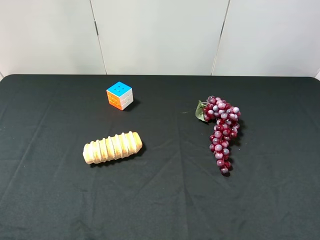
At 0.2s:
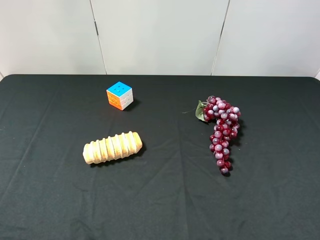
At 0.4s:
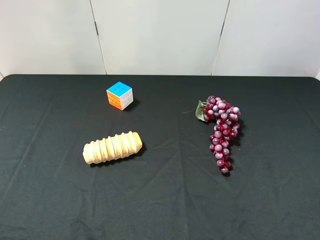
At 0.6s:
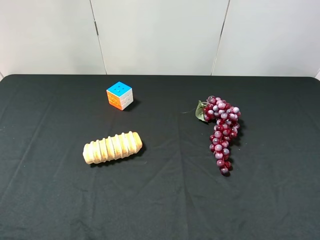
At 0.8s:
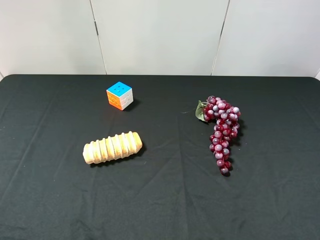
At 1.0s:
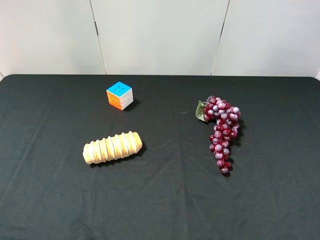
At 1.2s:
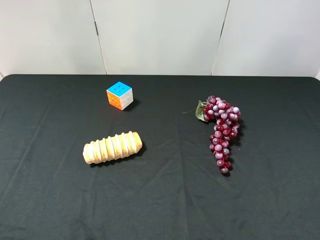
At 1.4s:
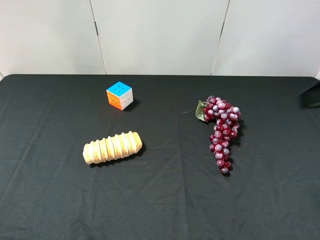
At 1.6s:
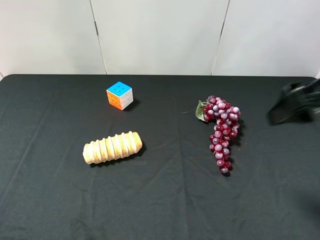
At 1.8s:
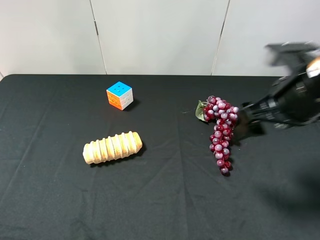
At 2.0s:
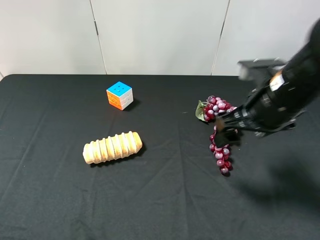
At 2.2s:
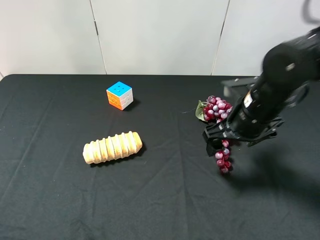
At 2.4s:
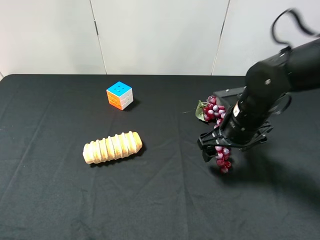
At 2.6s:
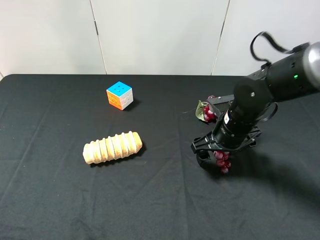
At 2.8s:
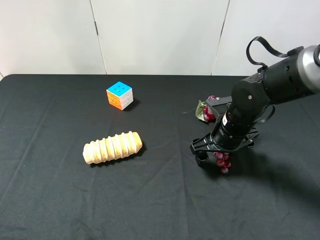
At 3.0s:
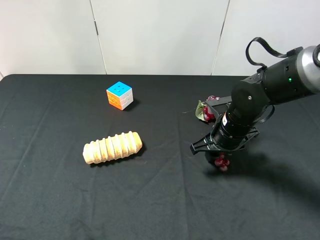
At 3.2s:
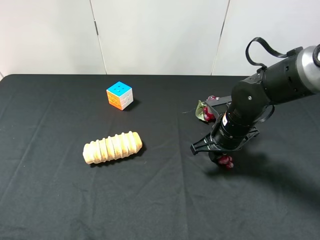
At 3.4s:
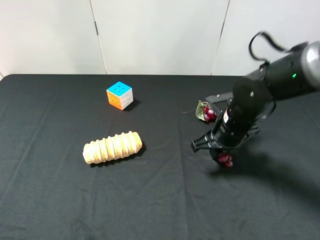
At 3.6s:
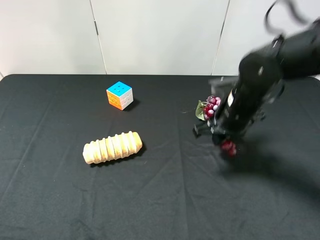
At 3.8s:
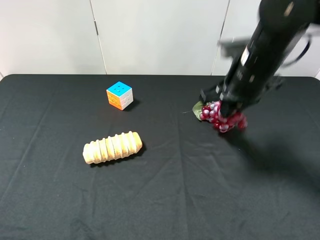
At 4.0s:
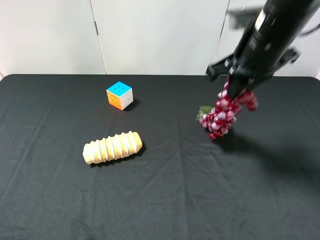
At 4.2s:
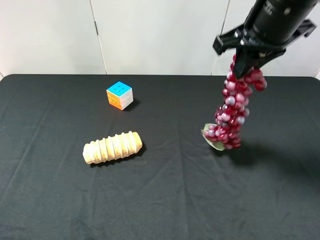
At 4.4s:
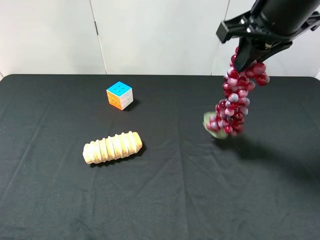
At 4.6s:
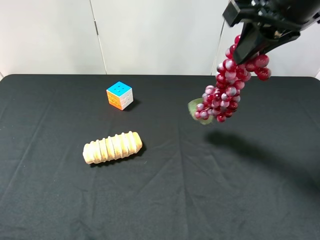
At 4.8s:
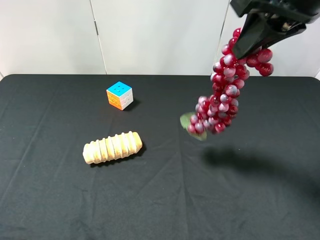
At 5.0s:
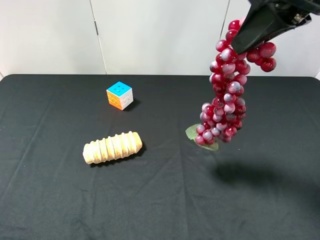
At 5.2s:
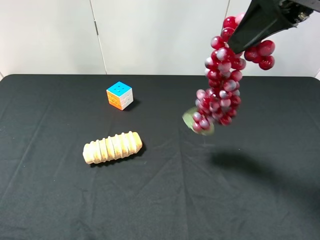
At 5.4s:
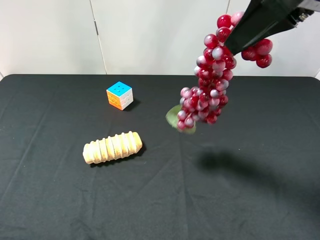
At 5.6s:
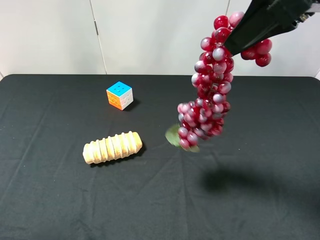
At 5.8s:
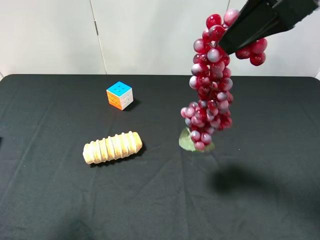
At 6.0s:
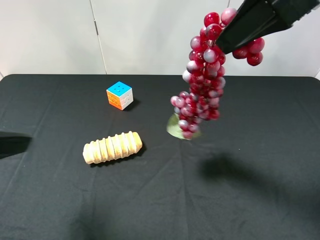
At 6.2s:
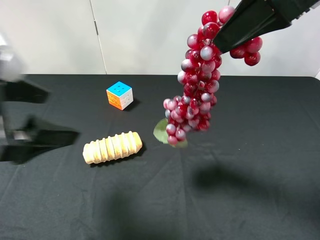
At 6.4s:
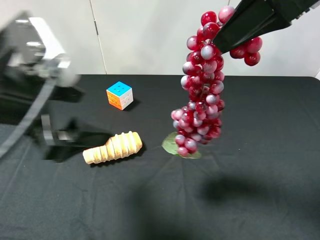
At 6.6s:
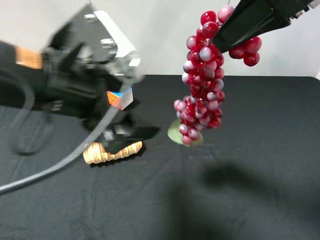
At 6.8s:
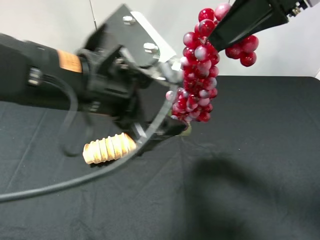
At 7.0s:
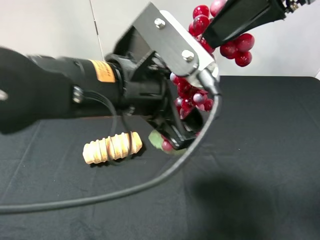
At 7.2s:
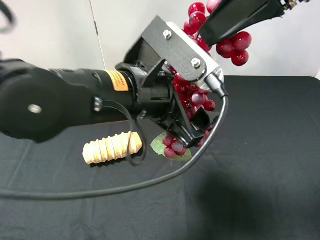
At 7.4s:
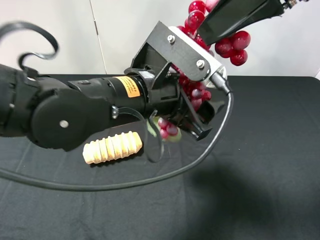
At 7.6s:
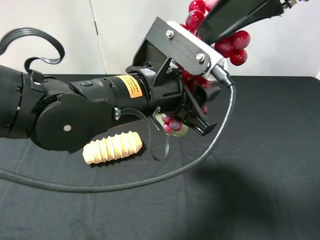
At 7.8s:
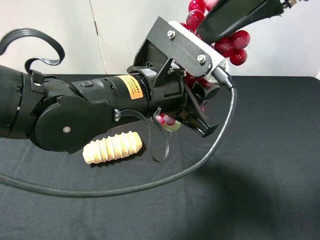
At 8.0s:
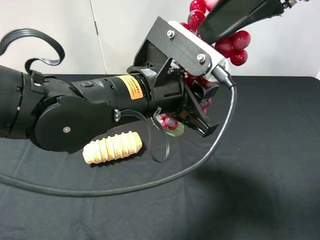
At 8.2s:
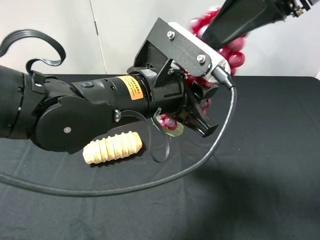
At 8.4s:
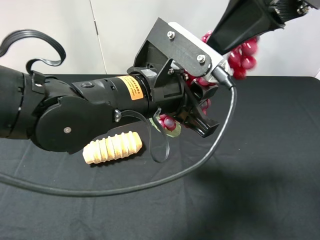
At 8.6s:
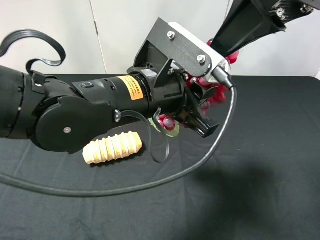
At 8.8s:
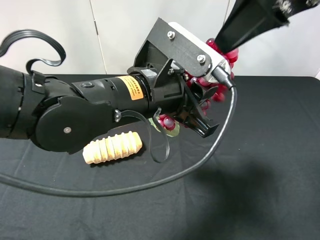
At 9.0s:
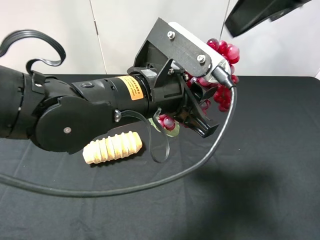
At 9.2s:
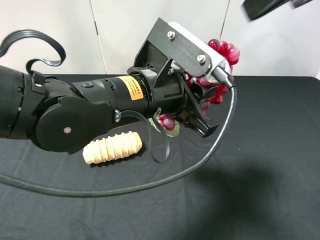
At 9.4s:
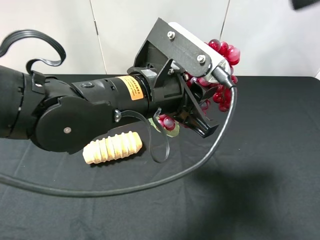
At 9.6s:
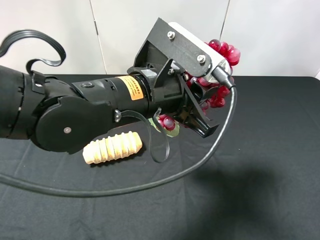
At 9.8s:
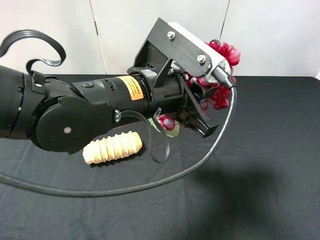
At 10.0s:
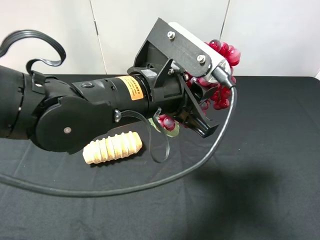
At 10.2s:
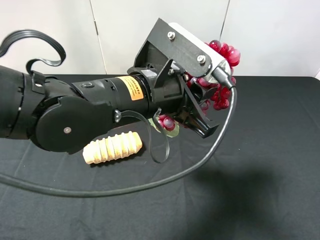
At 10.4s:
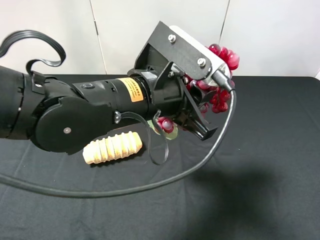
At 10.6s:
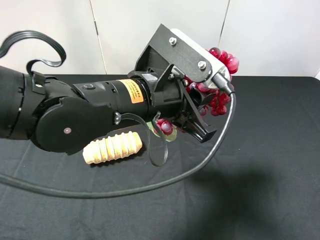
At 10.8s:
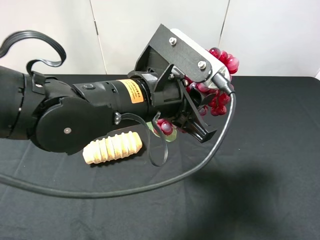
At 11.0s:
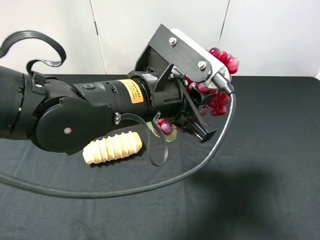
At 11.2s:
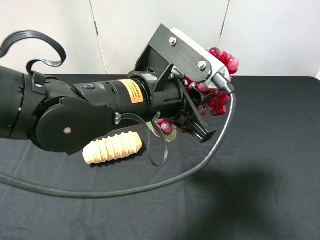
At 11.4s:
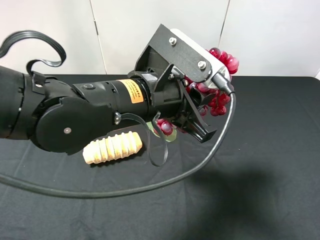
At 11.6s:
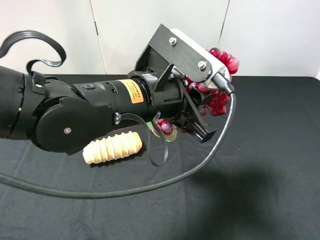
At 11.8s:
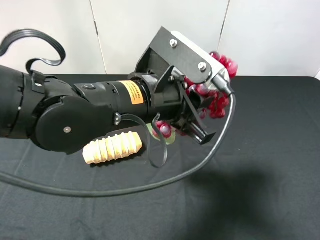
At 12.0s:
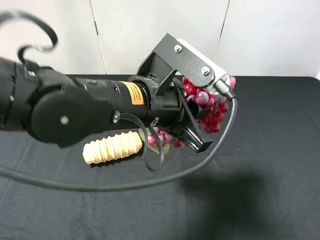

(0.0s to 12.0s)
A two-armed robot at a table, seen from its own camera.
Task of the whole recording: use the right gripper to pick up the item and transfer it from the right gripper to the left gripper.
Step, 0.0s - 3.4s: Use the right gripper to grab the grape on the right side of the table.
Step, 3.6s - 9.2s: Pass the grape to the left gripper.
0.0s - 1.6s: The right gripper heads forward, covering roughly 20 cm.
1.6s - 3.0s: The right gripper shifts some 20 cm downward, forward and to the left, and closes.
3.0s - 4.4s: The right gripper moves upward, roughly 25 cm.
4.4s - 6.0s: The left gripper goes approximately 15 cm forward and to the right, while the right gripper heads backward and upward, covering some 10 cm.
6.0s - 7.6s: The left gripper travels to the right by approximately 25 cm, and closes its fingers.
7.6s - 9.0s: The right gripper opens.
9.0s - 10.4s: The right gripper travels backward, downward and to the right by some 25 cm.

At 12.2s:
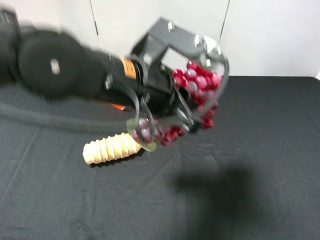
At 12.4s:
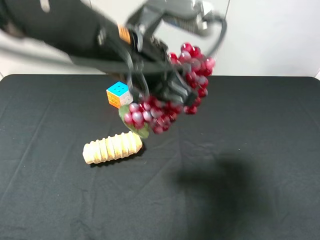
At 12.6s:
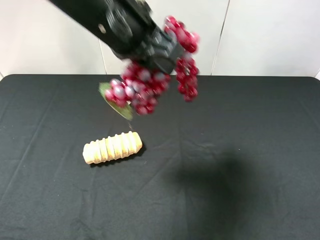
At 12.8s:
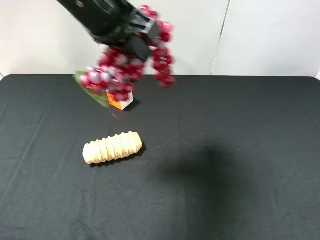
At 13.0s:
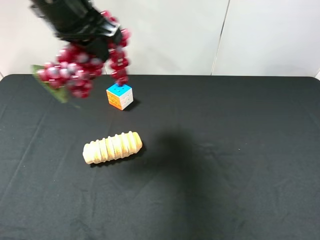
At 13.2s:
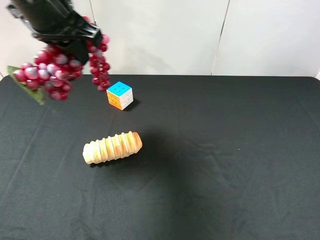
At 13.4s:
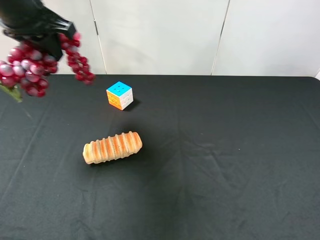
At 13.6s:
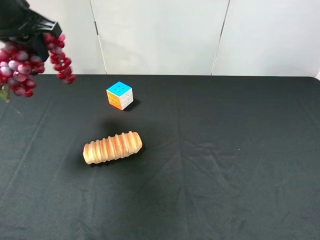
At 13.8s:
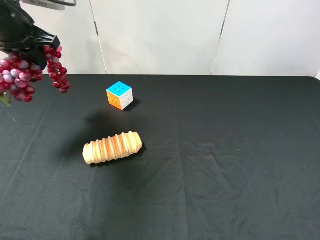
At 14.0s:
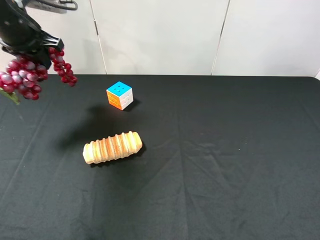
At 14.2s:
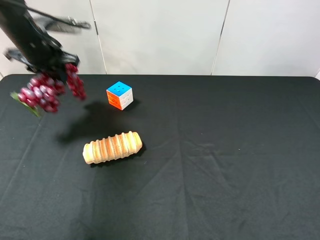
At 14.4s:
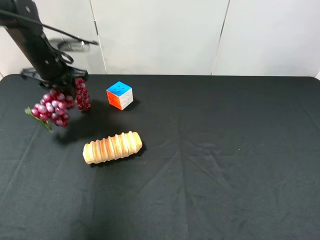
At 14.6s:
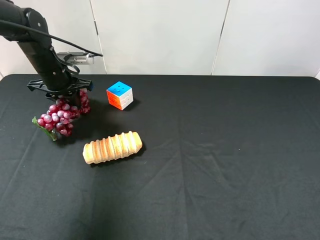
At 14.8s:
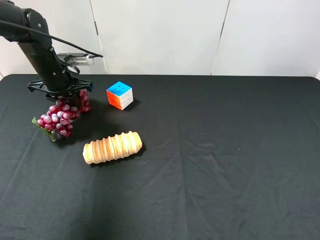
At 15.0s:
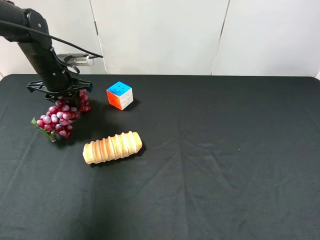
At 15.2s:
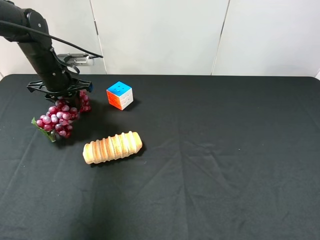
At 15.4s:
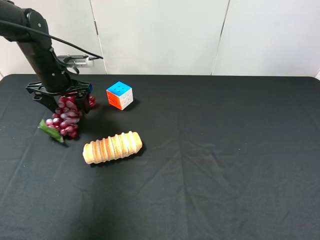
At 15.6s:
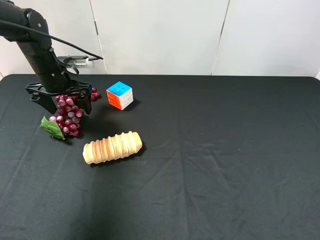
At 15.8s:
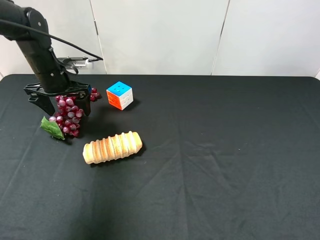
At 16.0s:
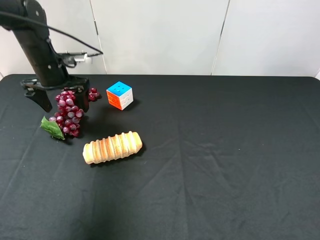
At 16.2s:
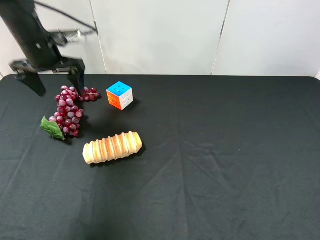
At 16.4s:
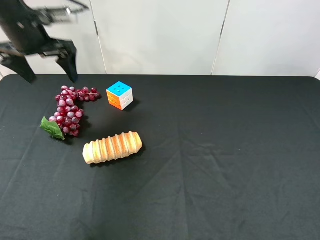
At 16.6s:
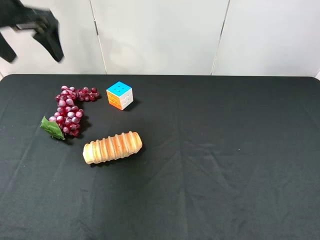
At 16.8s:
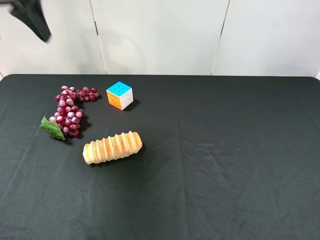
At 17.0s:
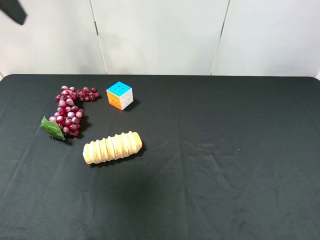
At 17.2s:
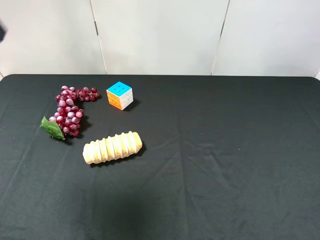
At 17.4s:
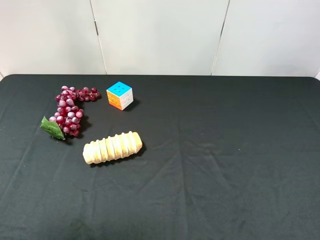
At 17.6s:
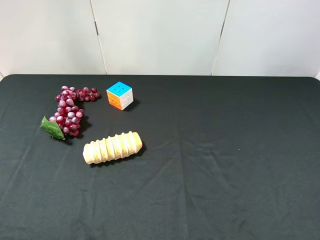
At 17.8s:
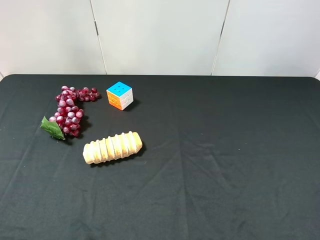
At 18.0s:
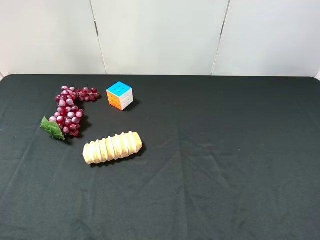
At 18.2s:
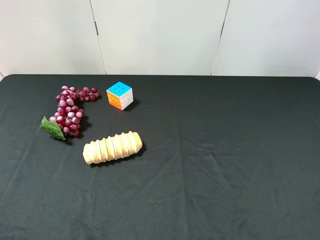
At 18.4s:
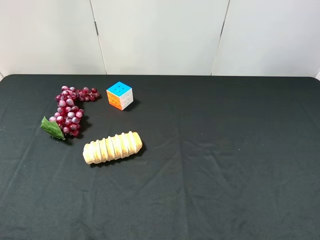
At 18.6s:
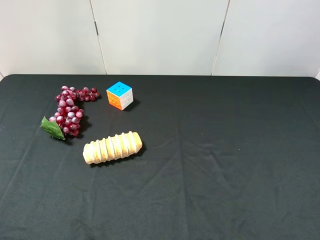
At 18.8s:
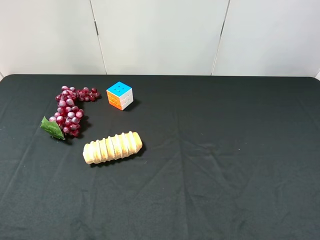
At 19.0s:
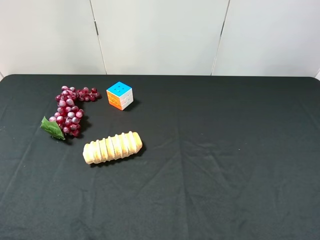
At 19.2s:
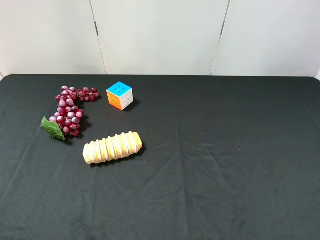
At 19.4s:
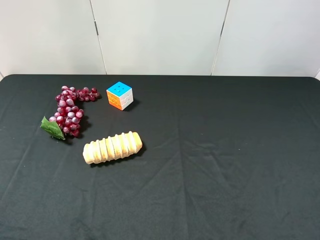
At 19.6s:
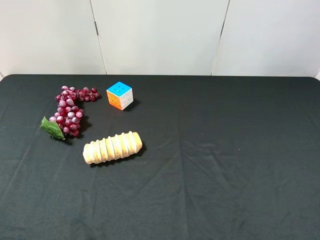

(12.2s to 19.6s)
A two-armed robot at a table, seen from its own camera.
Task of the whole recording: use the right gripper to pick up the item and transfer it from the right gripper to the left gripper.
Step, 12.2s - 15.6s: The left gripper places grape on the left side of the table.
12.2s - 13.6s: The left gripper travels to the left and forward by roughly 25 cm.
13.6s - 15.2s: The left gripper travels downward and forward by roughly 20 cm.
15.2s - 16.6s: The left gripper shifts roughly 20 cm upward, and opens up.
16.6s - 18.2s: The left gripper heads backward, covering roughly 35 cm.

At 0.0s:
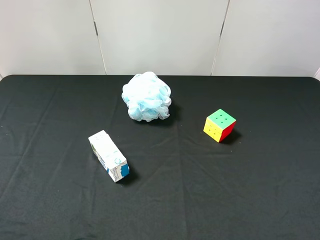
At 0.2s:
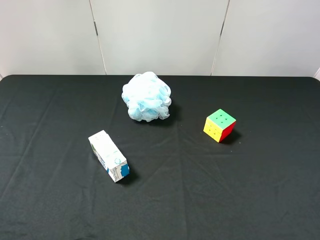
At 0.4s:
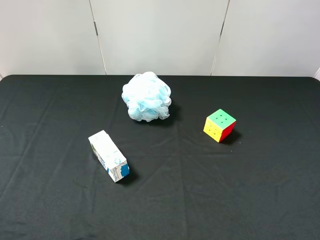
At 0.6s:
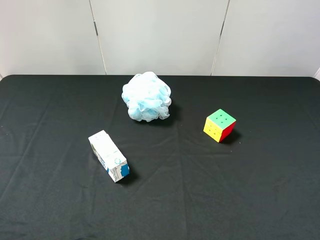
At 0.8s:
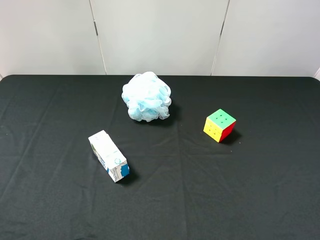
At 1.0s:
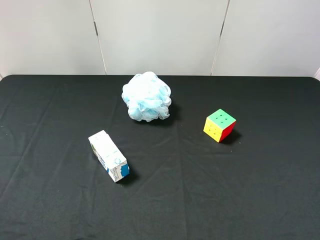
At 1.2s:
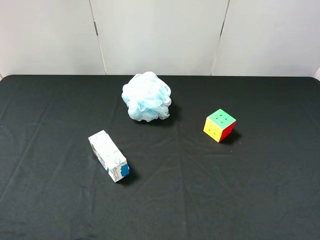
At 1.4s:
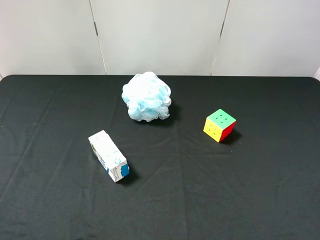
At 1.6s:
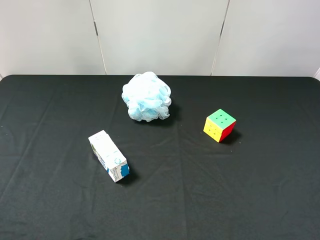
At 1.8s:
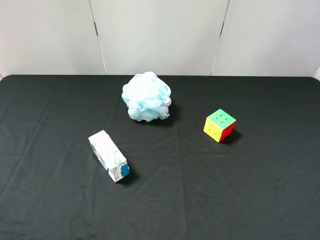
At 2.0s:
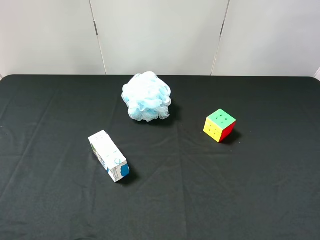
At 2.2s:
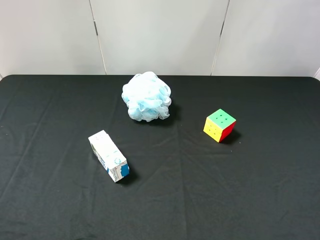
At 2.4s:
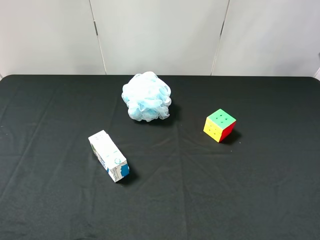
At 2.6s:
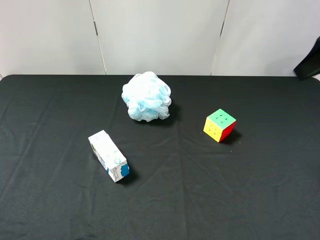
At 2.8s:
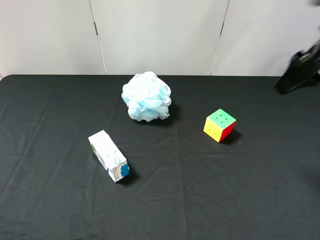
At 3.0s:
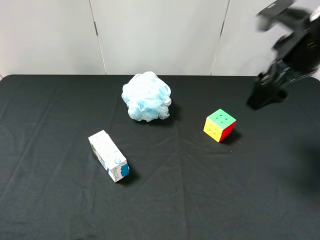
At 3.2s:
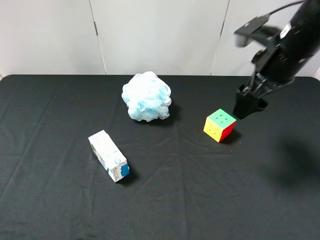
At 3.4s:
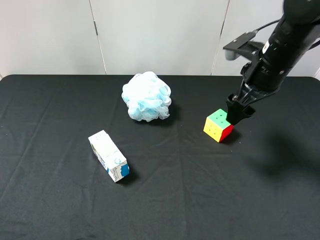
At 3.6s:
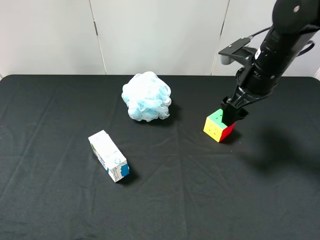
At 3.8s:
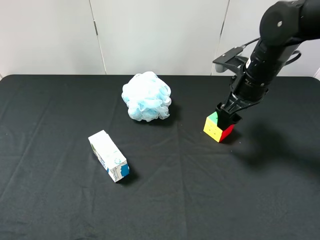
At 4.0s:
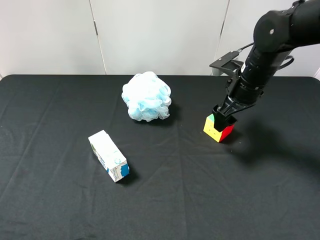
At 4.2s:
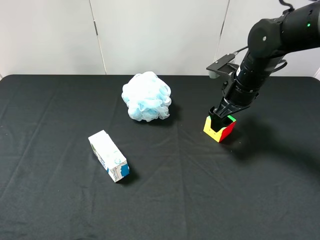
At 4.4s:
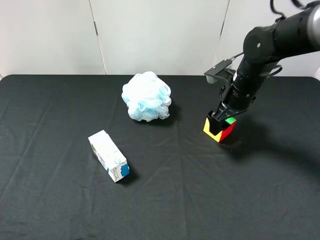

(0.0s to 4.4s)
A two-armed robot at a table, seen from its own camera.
Task of the whole recording: use the right gripper to pick up the item and transfer it from the right gripper to the left gripper.
1.4s - 3.0s: The right gripper moves forward, approximately 30 cm.
3.0s - 4.4s: The right gripper shifts about 15 cm downward and forward.
